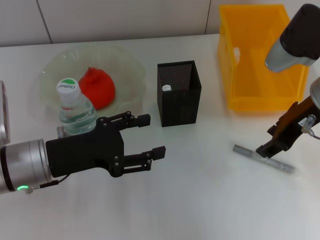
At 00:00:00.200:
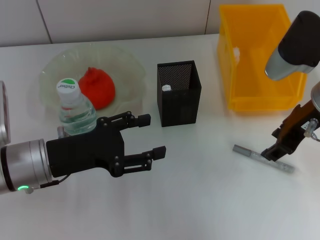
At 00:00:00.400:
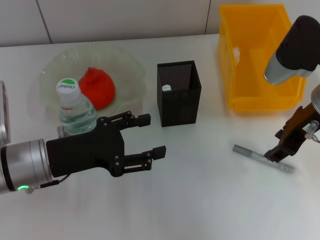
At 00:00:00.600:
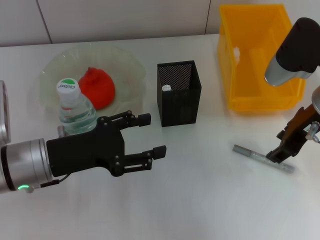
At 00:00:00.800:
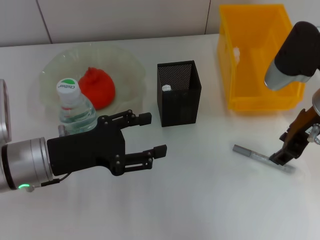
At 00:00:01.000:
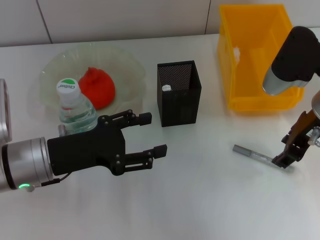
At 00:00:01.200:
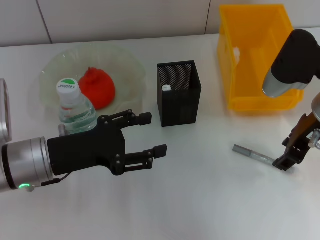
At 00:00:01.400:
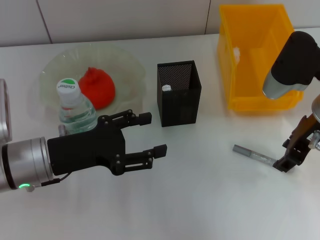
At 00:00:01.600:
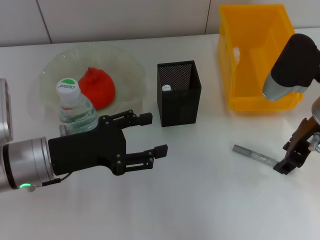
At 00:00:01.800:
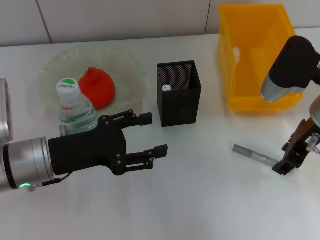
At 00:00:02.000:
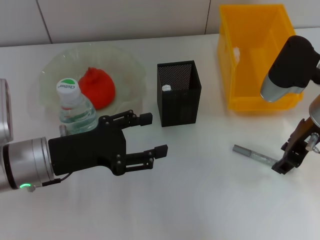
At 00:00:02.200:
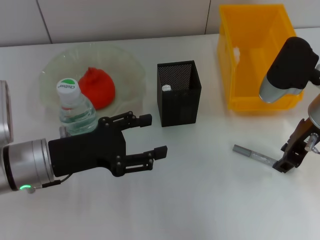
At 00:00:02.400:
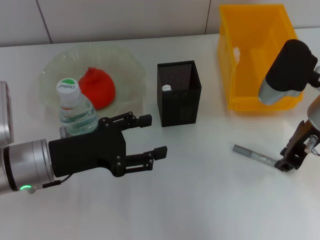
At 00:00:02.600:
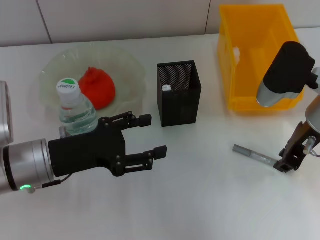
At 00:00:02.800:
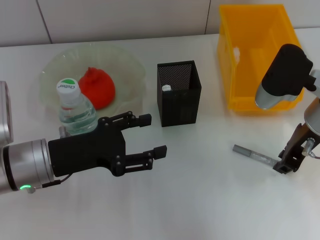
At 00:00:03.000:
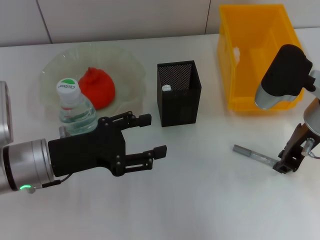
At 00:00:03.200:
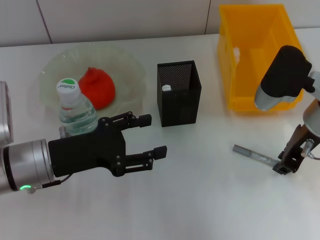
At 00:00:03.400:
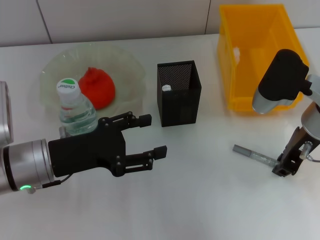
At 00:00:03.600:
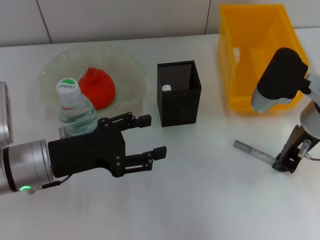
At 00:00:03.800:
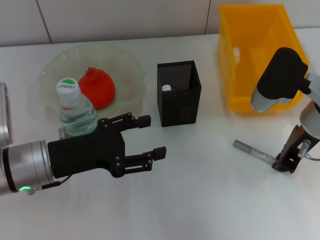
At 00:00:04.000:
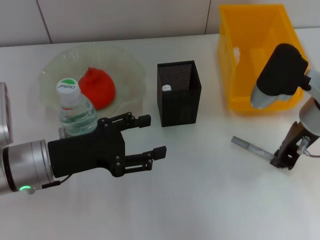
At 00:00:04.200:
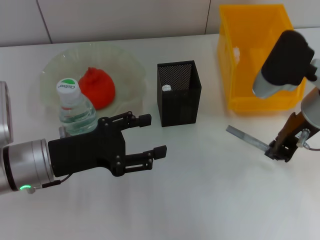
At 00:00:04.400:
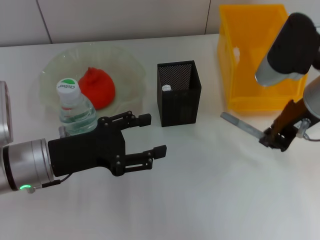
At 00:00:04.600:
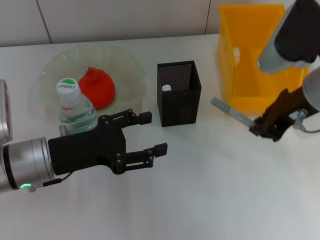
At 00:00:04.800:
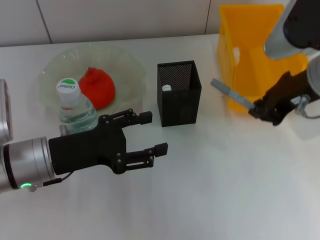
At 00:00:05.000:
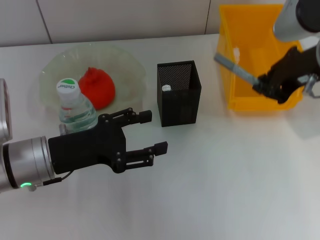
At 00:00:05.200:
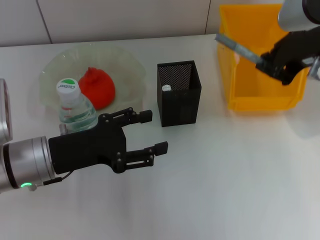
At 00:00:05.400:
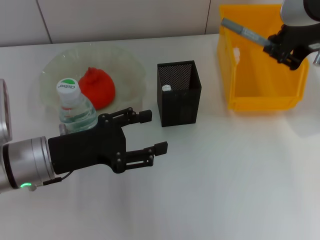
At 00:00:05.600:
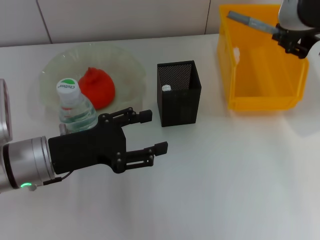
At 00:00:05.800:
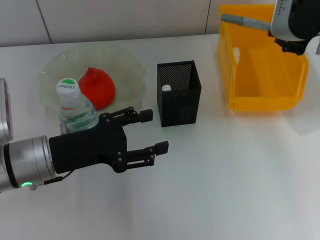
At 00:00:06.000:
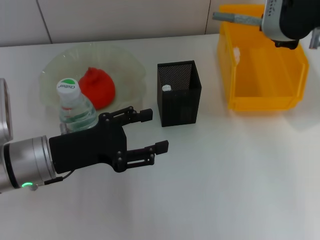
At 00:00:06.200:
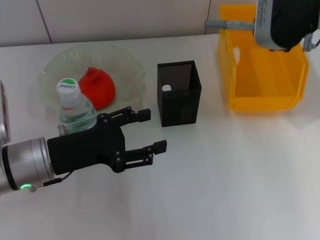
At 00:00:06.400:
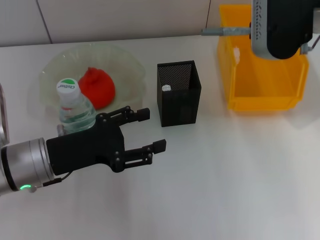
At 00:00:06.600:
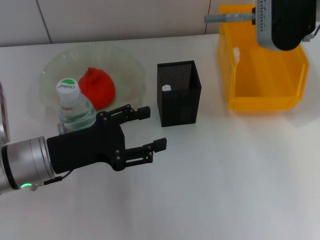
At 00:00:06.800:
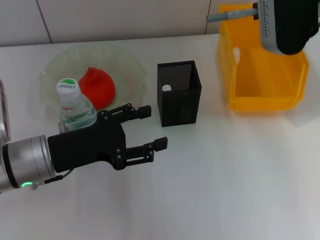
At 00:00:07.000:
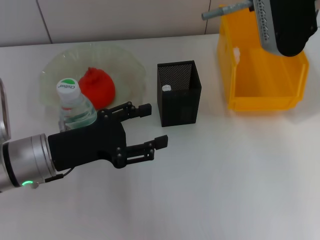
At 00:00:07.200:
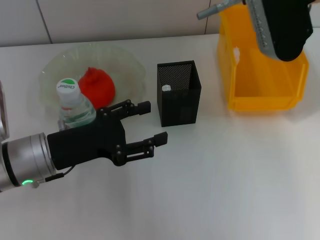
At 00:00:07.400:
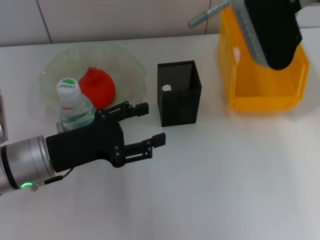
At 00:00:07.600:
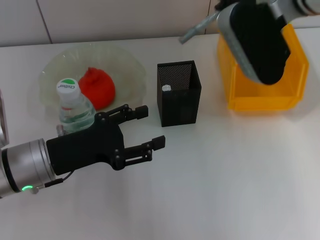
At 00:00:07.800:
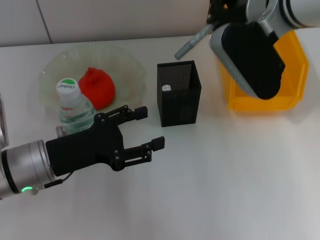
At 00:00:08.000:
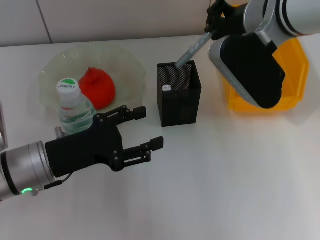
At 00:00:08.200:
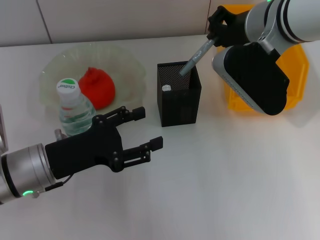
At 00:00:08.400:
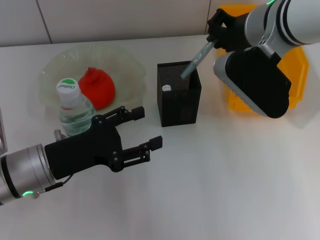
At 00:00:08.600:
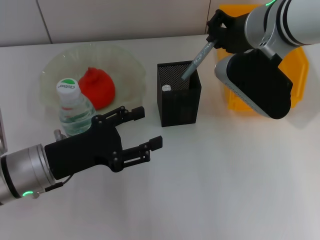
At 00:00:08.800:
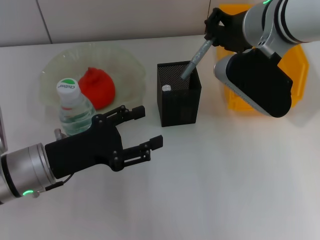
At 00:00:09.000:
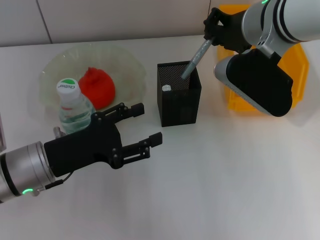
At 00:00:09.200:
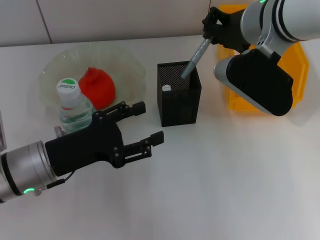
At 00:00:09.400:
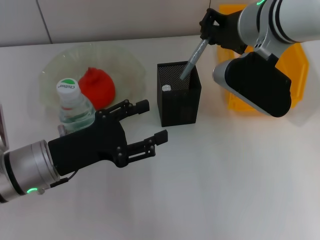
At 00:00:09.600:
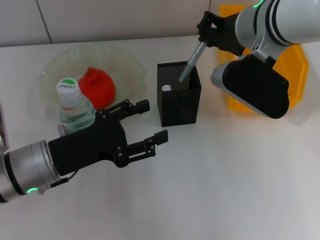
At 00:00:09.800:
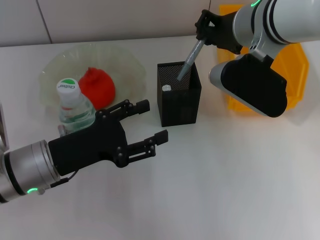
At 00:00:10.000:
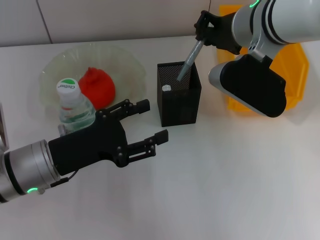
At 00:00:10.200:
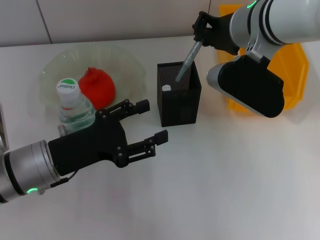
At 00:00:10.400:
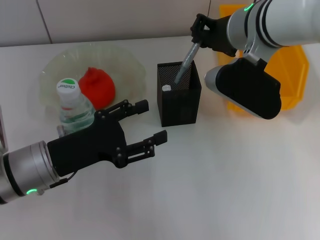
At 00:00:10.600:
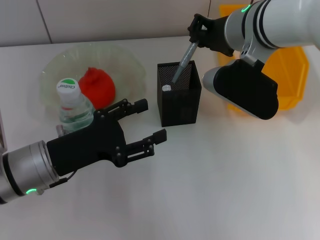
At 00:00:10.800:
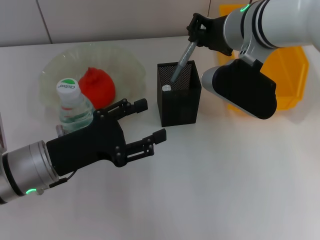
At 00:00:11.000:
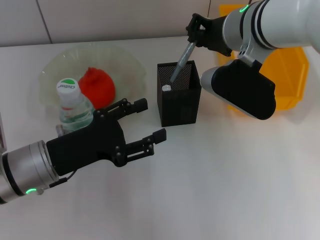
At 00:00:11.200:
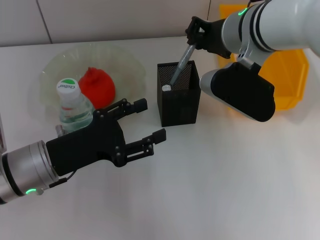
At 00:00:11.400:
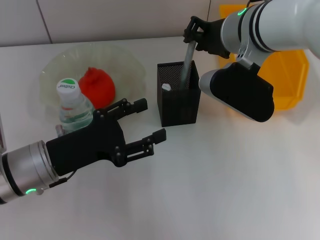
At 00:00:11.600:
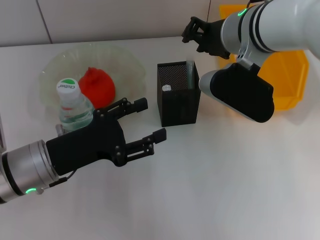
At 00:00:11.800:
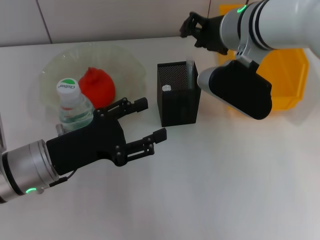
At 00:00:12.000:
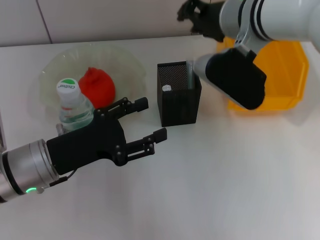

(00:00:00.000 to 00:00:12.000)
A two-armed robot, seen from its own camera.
Step, 00:00:00.000 - 00:00:03.400: Grab the gray glue with the right hand.
Step, 00:00:03.600 - 00:00:11.600: Place the gray glue into the pen holder with the right hand.
00:00:00.000 - 00:00:01.600: The grippers make only small movements.
00:00:01.600 - 00:00:03.000: The right gripper closes its fingers.
00:00:03.000 - 00:00:04.400: The grippers move only a little.
00:00:04.400 - 00:00:06.000: The right gripper heads upward, covering roughly 10 cm.
00:00:06.000 - 00:00:07.600: The right gripper ends up some 5 cm from where it was.
00:00:07.600 - 00:00:09.000: The grippers move only a little.
00:00:09.000 - 00:00:12.000: The grippers move only a little.

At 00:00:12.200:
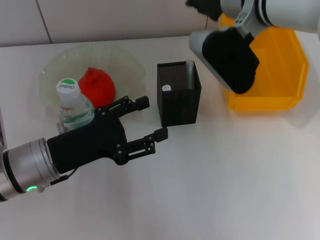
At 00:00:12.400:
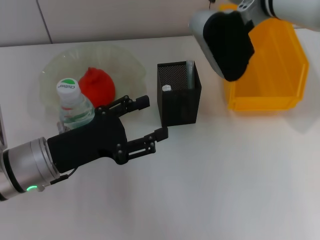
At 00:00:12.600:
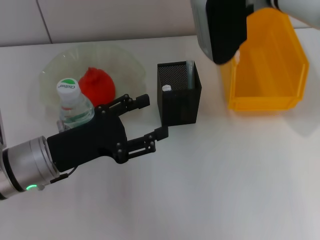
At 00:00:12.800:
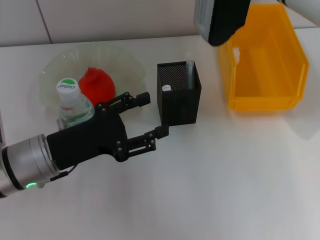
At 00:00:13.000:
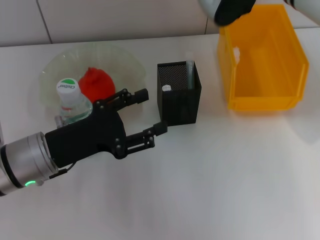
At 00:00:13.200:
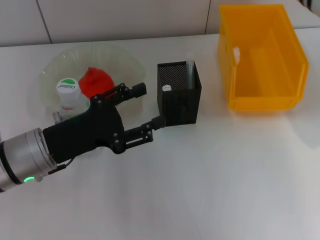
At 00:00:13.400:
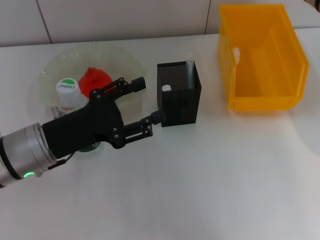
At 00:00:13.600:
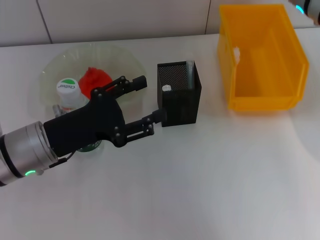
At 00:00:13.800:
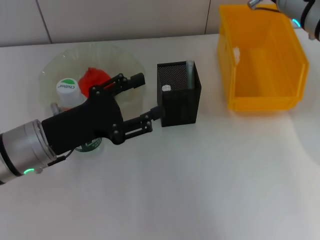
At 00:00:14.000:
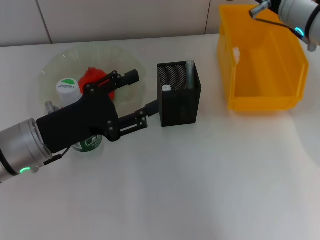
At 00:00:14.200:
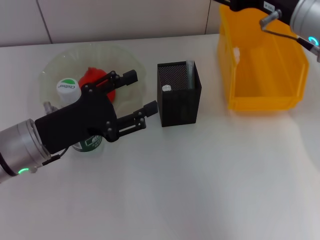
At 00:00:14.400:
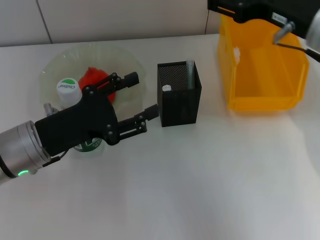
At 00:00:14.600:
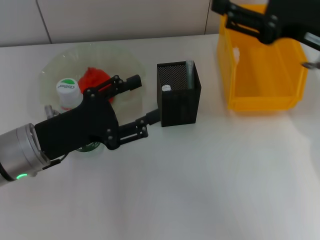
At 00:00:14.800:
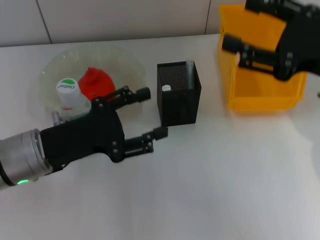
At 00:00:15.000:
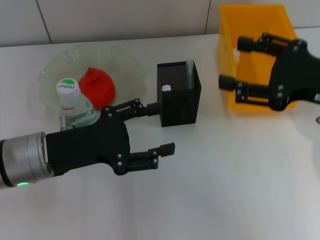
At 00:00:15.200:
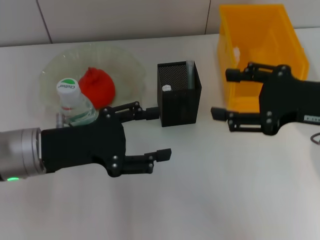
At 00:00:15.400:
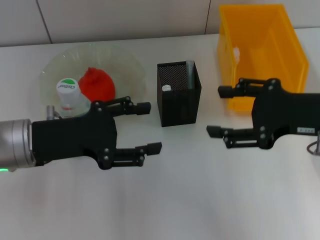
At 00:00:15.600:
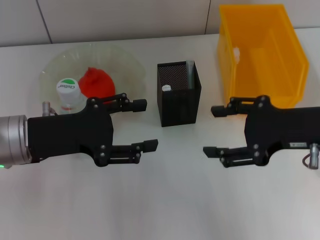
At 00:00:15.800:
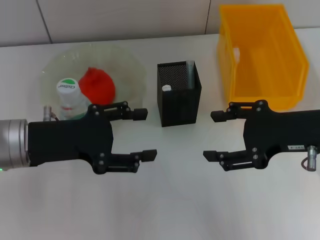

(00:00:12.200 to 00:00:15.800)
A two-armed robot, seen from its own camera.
00:00:12.200 - 00:00:14.000: The right gripper moves to the right, approximately 5 cm.
00:00:14.000 - 00:00:15.800: The right gripper heads backward, covering roughly 10 cm.
